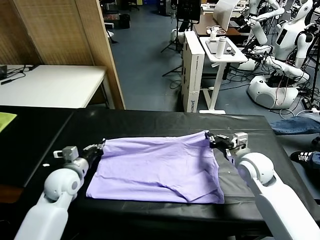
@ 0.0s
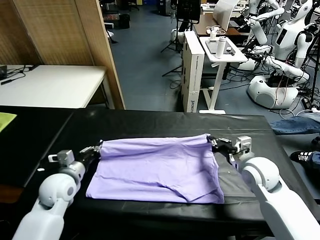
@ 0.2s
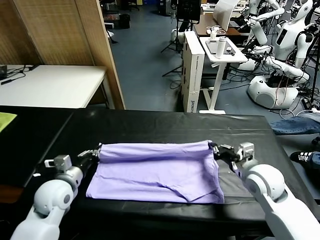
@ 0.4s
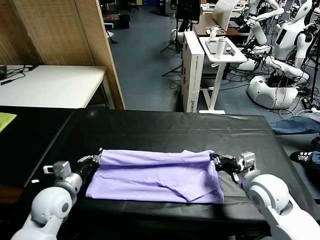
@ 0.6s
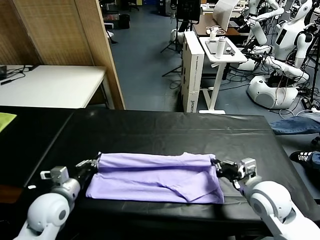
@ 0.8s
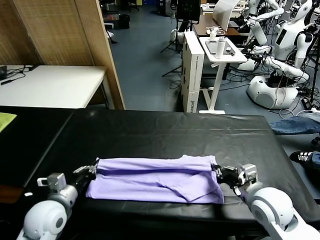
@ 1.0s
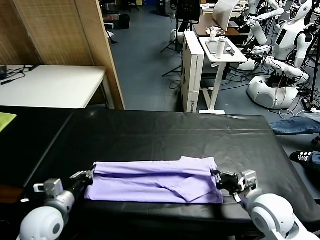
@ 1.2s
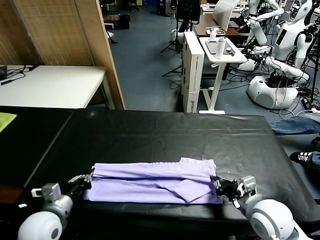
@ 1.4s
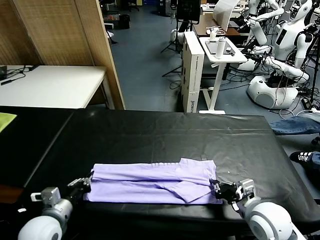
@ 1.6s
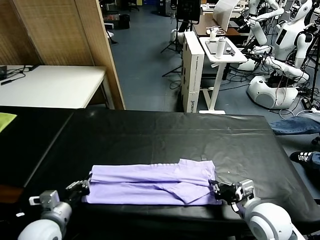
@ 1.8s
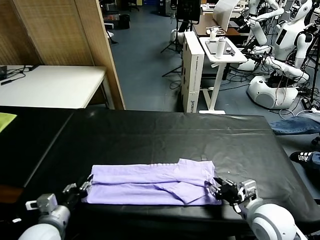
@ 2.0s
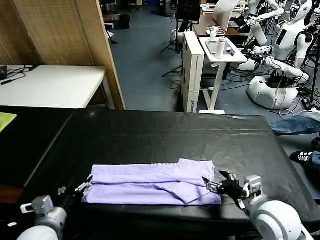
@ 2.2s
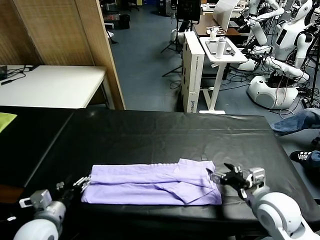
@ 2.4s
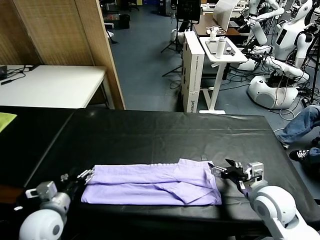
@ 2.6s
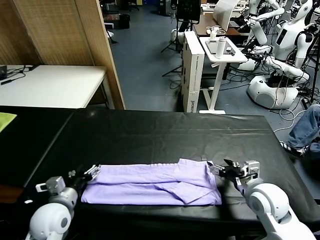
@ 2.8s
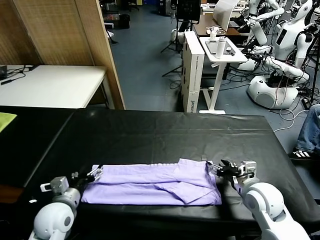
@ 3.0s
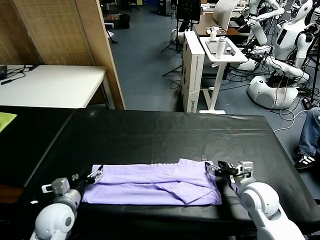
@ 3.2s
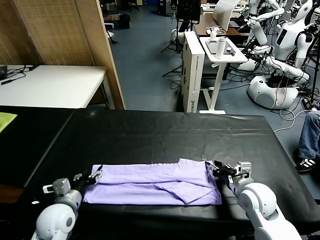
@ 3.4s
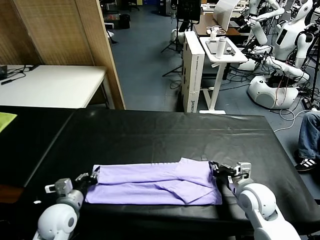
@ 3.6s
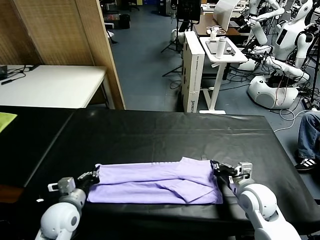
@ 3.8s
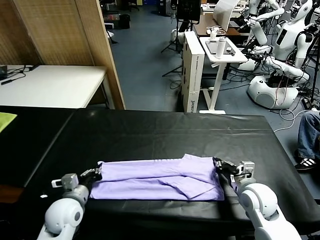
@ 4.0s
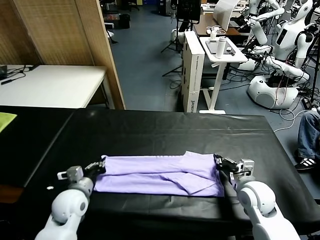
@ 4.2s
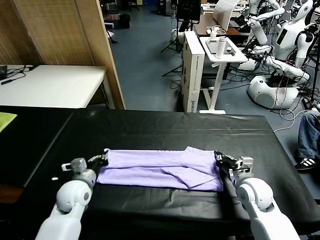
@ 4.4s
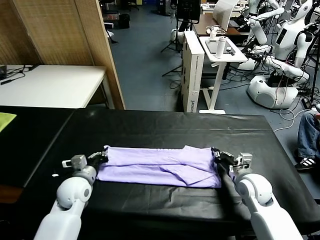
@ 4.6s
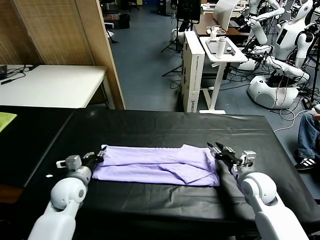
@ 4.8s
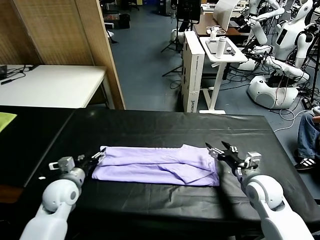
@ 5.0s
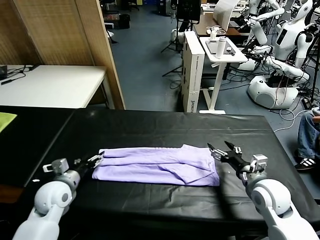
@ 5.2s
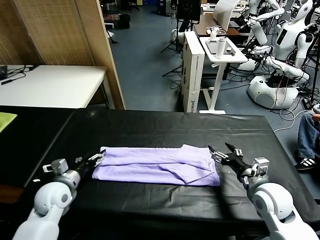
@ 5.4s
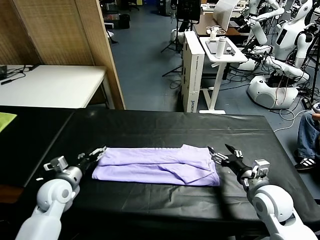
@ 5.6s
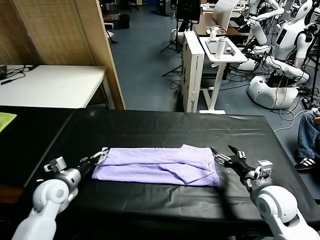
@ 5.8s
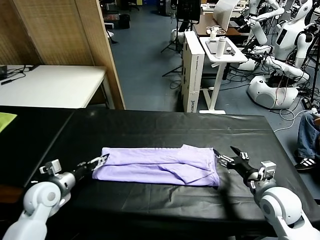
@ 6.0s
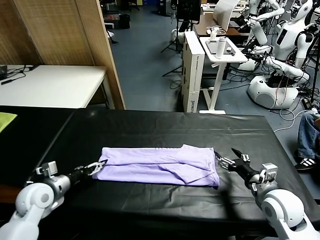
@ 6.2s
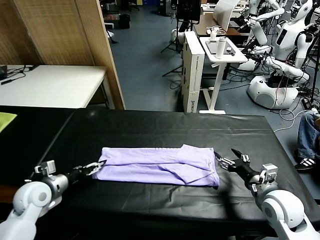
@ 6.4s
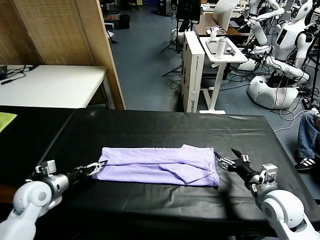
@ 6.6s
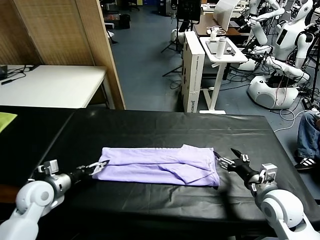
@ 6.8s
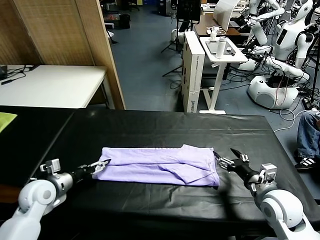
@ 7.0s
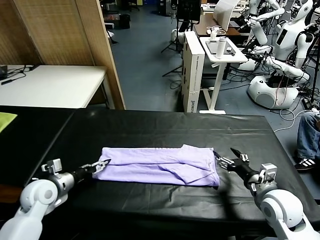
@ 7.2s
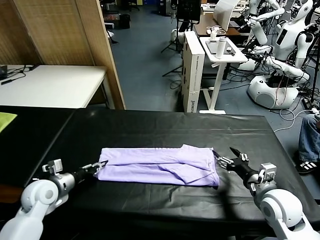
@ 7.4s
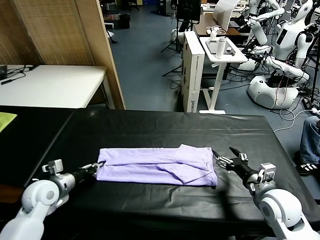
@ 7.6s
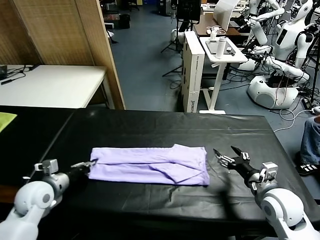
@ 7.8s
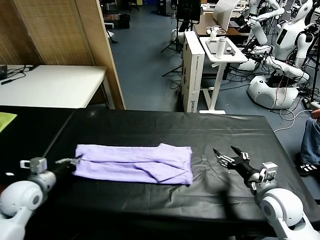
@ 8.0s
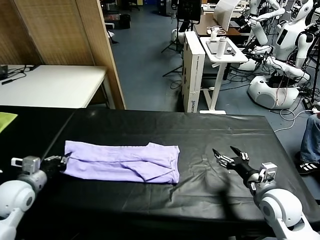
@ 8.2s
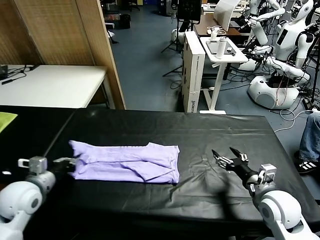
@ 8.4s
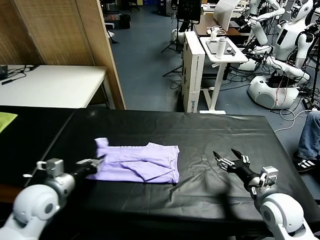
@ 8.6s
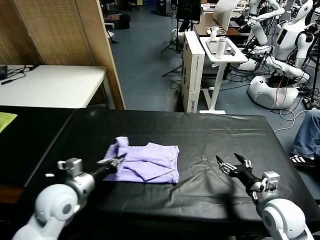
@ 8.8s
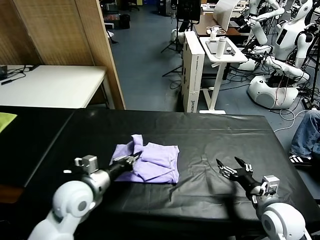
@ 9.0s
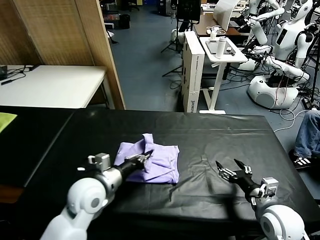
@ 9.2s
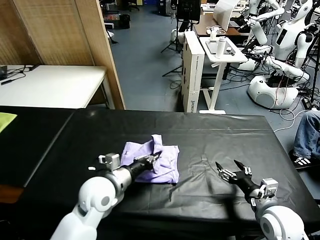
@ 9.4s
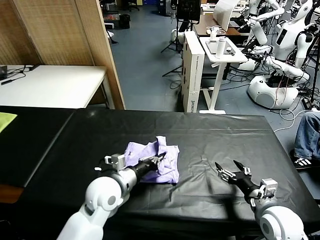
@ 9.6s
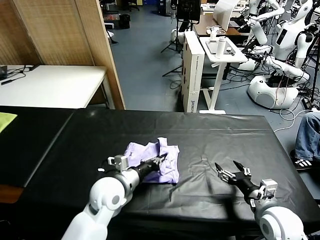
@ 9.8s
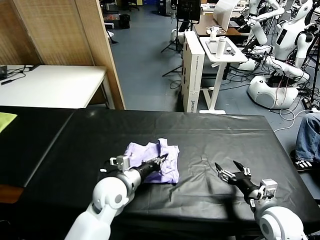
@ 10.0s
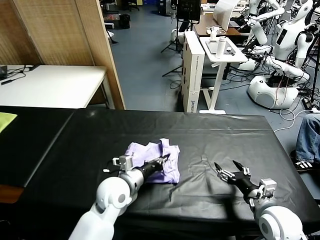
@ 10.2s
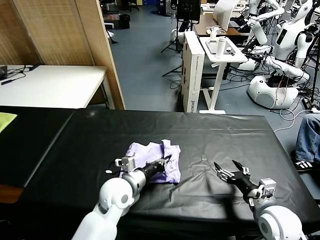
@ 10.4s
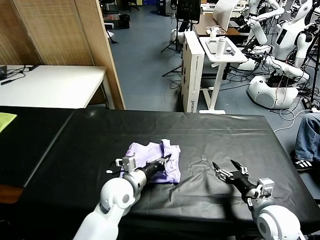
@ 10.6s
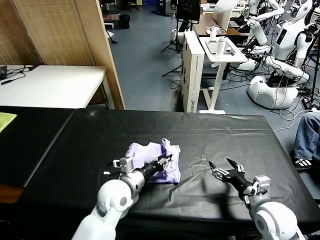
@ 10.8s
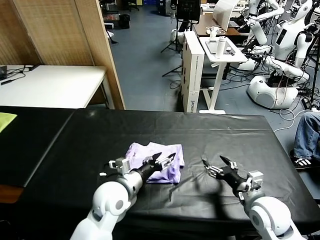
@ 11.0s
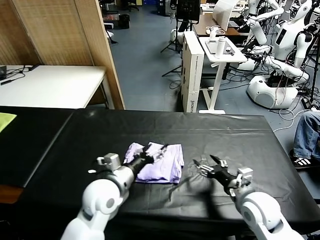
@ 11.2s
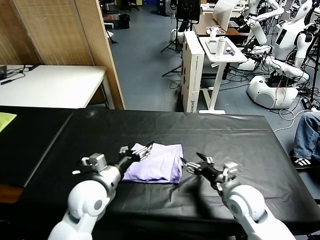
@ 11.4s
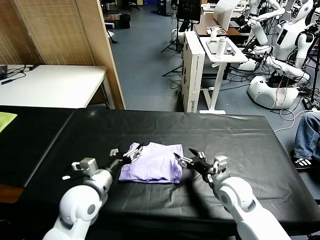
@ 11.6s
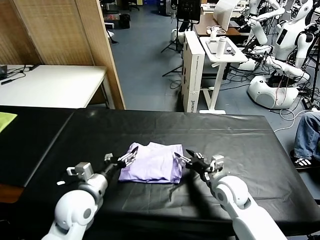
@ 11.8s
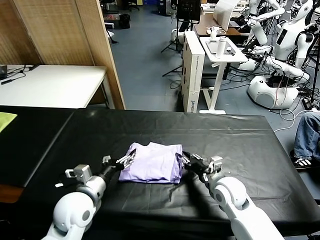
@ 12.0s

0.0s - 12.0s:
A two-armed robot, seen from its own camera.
Task of the whole recording: fold and organize the clothes.
Step, 0.0s - 2.0s: use both grippers to drag the upper edge of the fabric backward and fold it over the lower edge.
Step, 2.2s - 7.6s: use the left gripper to clamp the left edge of the fabric.
Step, 7.8s - 11.0s: use the left gripper to drag the left edge of the fabric to the left and folds it over the right edge.
0.0s - 1.6s: Both grippers move backward, some 15 cm.
1.6s - 3.0s: The left gripper changes place by roughly 5 cm, and opens up. Meanwhile the right gripper travels forward by about 5 cm, and opens its fingers.
3.0s - 4.4s: The right gripper shifts by about 5 cm, and closes. The left gripper goes approximately 10 cm forward, and closes.
4.4s - 6.0s: The left gripper is displaced to the left by about 10 cm, and opens up. Meanwhile the right gripper travels backward by roughly 5 cm, and opens.
6.0s - 7.6s: The left gripper closes its fingers.
7.6s - 9.0s: The left gripper shifts roughly 15 cm to the right.
9.0s - 10.4s: The left gripper heads to the right and downward, covering roughly 10 cm.
10.4s - 12.0s: The right gripper heads to the left and forward, covering roughly 15 cm, and closes. Meanwhile the left gripper travels to the left and backward by some 10 cm, and opens.

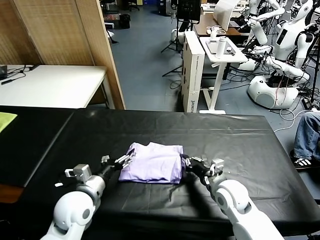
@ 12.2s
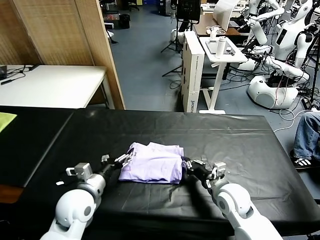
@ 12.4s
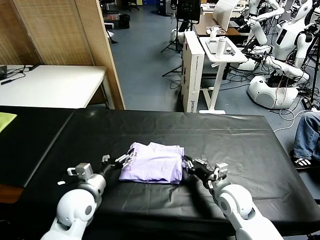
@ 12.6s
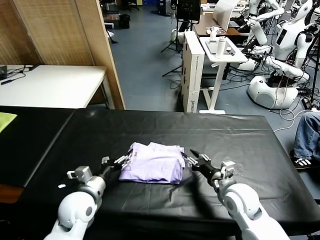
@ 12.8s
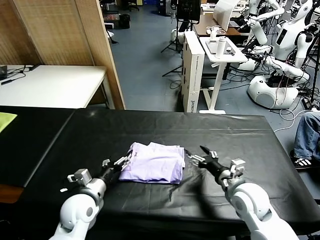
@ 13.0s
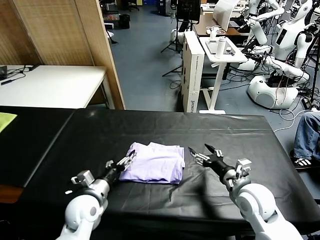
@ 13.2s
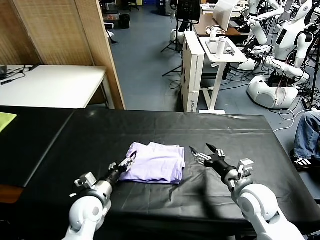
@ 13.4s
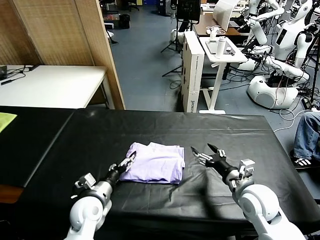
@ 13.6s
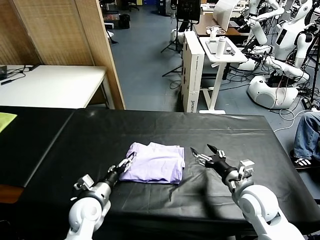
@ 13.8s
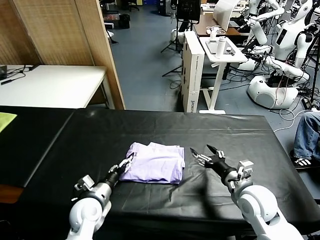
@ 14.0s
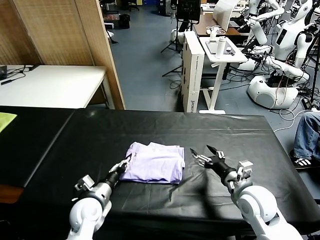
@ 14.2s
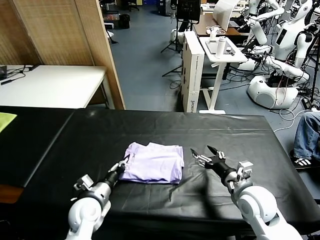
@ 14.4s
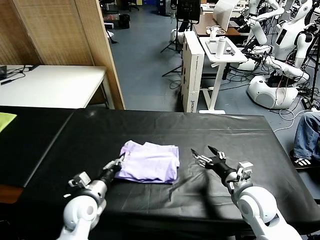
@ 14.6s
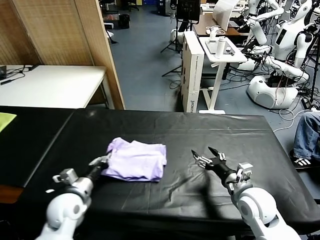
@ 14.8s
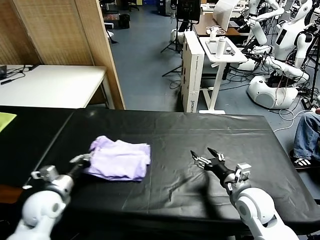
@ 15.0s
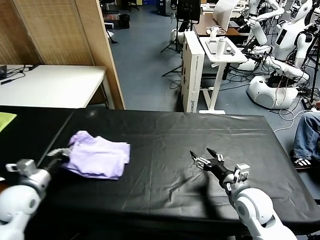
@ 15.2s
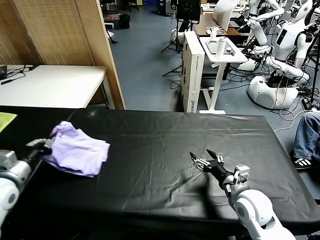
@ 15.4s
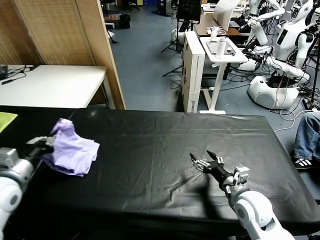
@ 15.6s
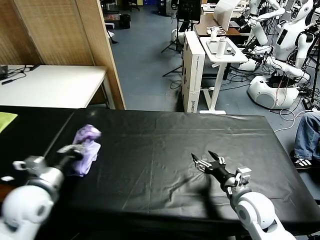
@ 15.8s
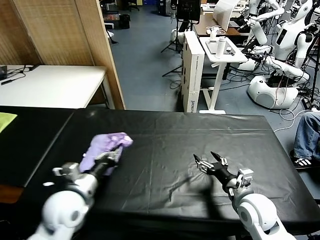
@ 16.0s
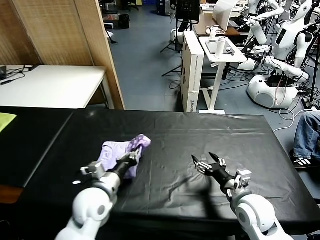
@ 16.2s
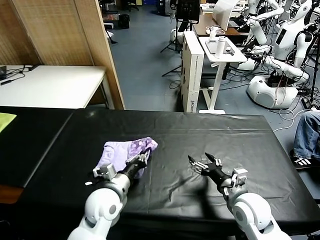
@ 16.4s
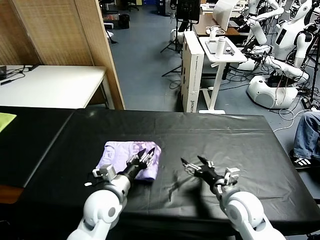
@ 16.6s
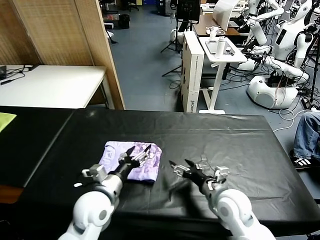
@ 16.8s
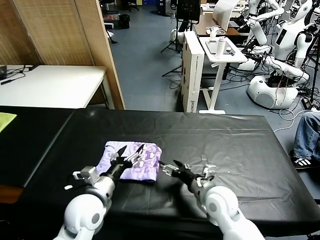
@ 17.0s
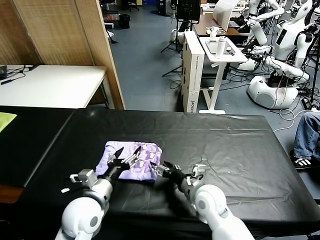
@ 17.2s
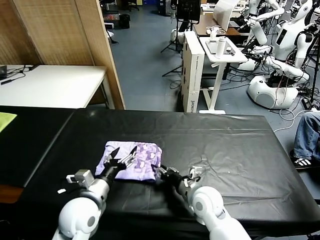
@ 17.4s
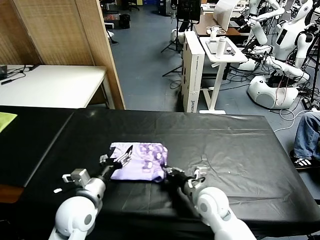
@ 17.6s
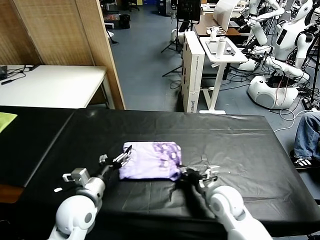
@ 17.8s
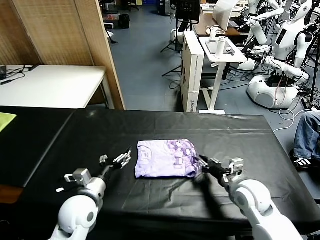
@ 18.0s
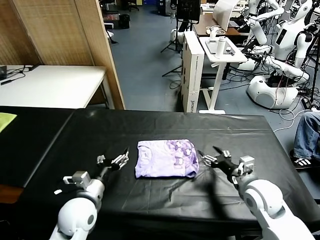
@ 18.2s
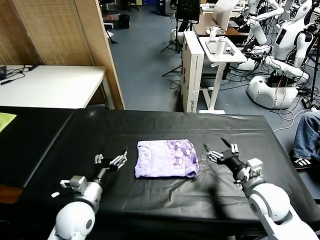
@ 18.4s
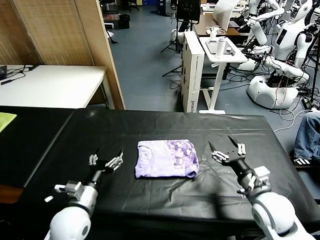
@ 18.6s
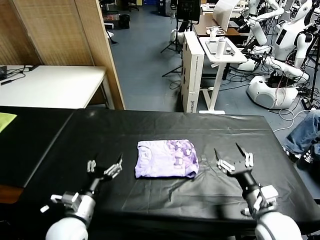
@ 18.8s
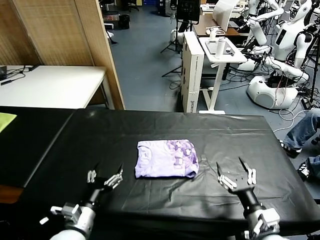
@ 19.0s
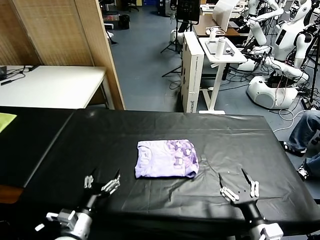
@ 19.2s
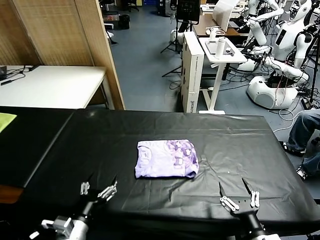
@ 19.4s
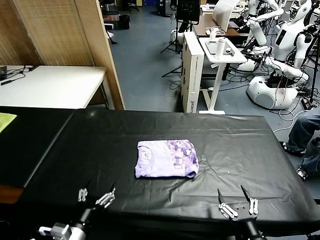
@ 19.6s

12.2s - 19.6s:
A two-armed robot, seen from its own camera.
Task of the whole recording: fold and organize the clothes.
Step, 12.2s - 16.6s: Flip the folded clothes over with left gripper.
Step, 16.8s - 18.2s: Drag the clothes to the center of the table.
12.2s - 13.6s: The left gripper is displaced downward by some 10 cm, while the right gripper travels to the right by roughly 5 cm, and opens.
13.6s - 15.2s: The left gripper shifts approximately 20 cm to the left and upward, and closes its fingers.
15.2s - 16.6s: The left gripper is displaced to the right by some 25 cm, and opens its fingers.
16.6s - 18.2s: The left gripper goes approximately 5 cm to the left. Meanwhile the right gripper is displaced to the right by roughly 5 cm, and closes, then opens again.
18.2s - 19.6s: The left gripper shifts roughly 15 cm backward. Meanwhile the right gripper travels backward by roughly 20 cm.
